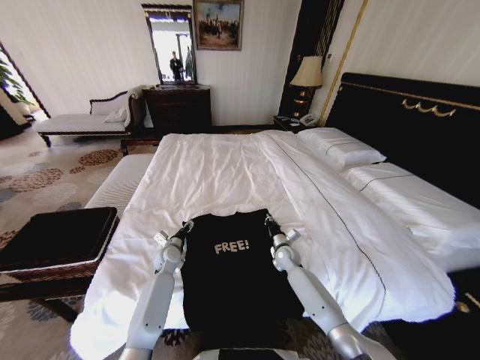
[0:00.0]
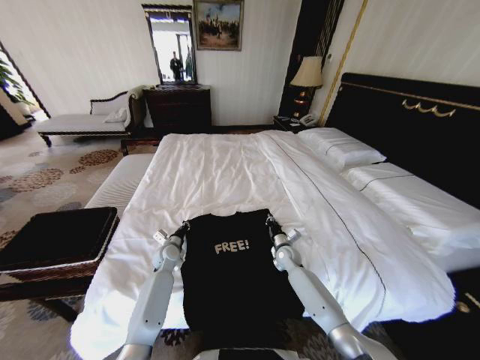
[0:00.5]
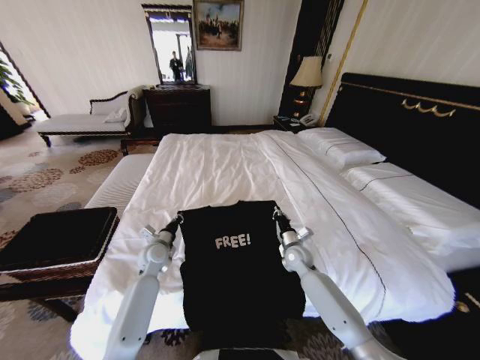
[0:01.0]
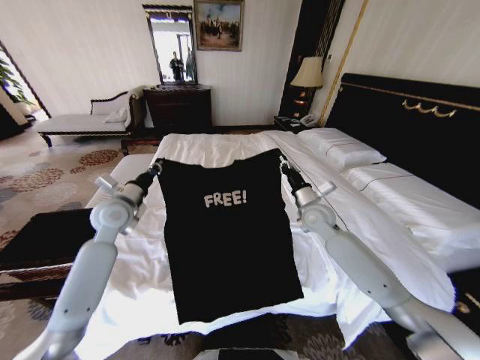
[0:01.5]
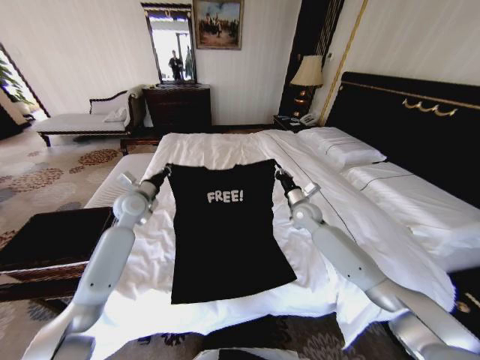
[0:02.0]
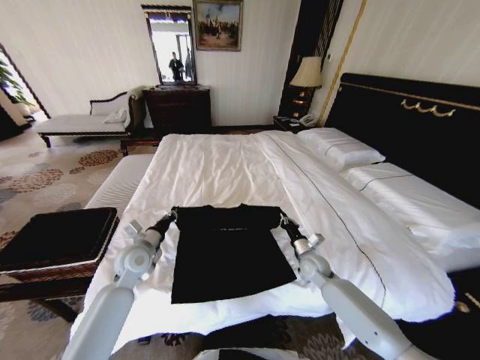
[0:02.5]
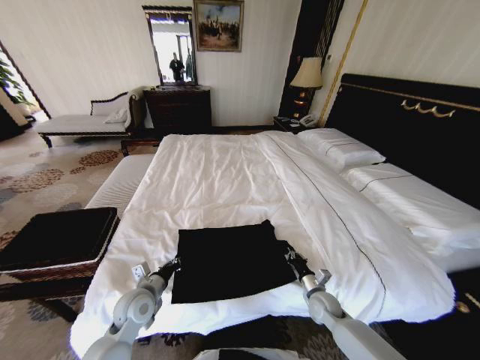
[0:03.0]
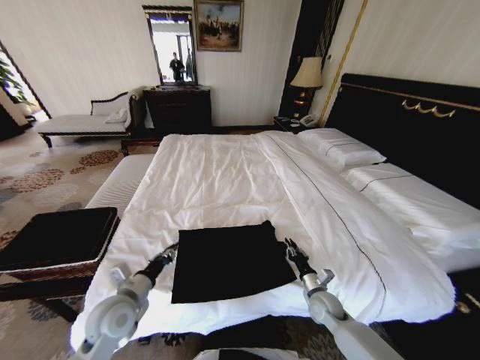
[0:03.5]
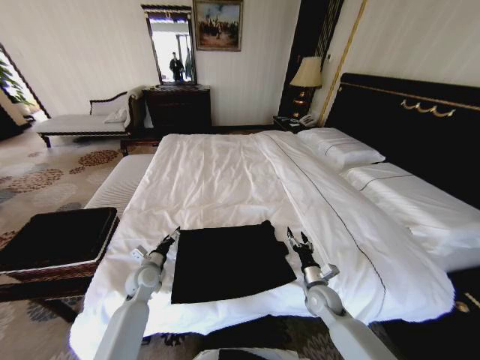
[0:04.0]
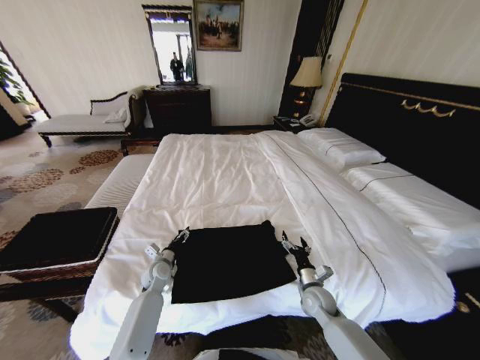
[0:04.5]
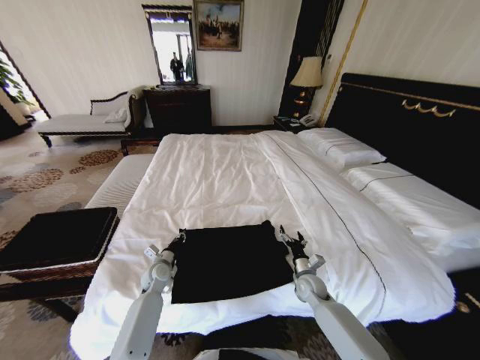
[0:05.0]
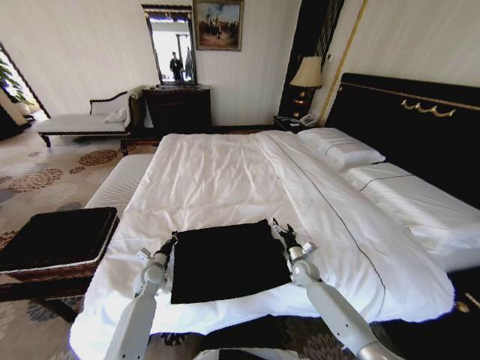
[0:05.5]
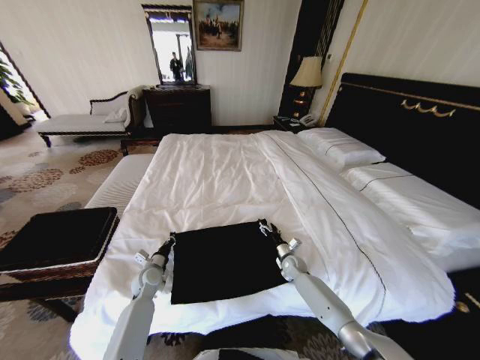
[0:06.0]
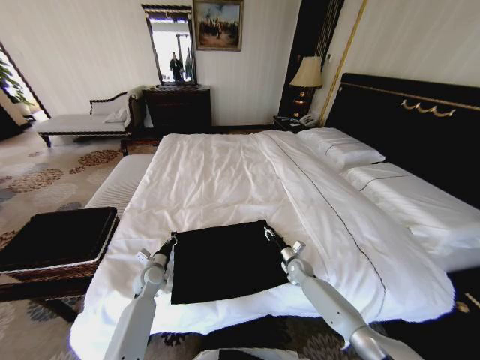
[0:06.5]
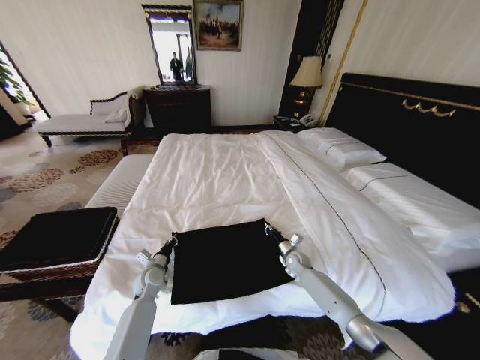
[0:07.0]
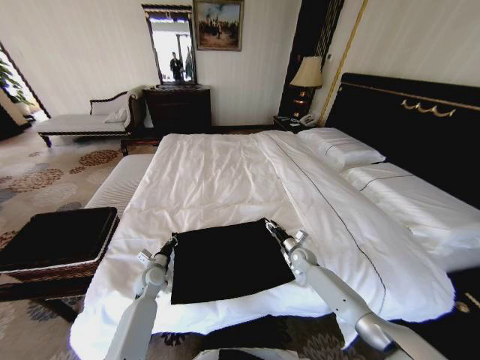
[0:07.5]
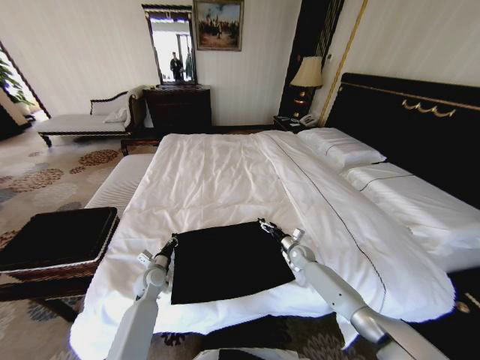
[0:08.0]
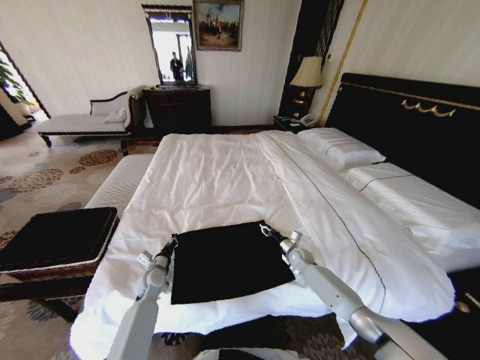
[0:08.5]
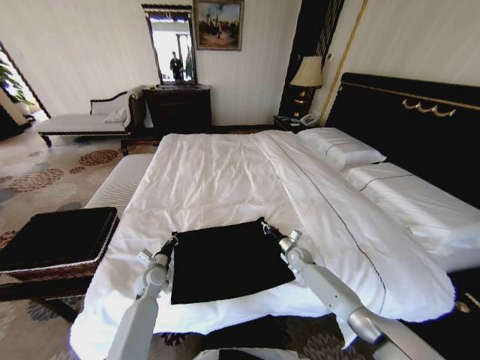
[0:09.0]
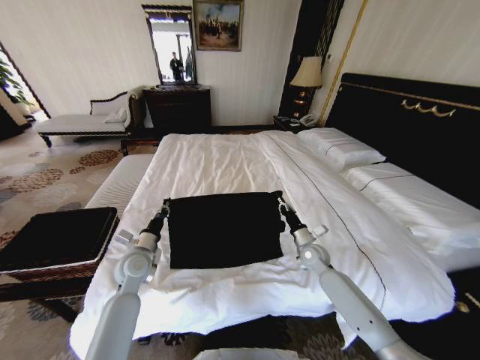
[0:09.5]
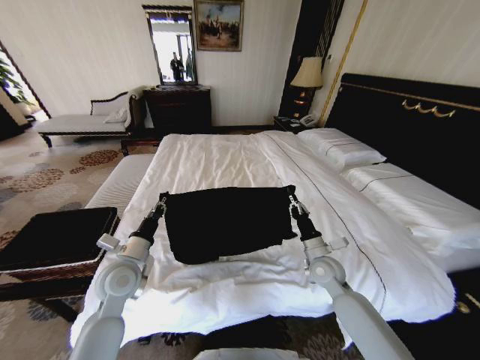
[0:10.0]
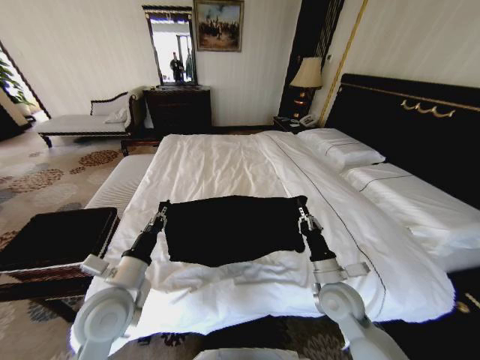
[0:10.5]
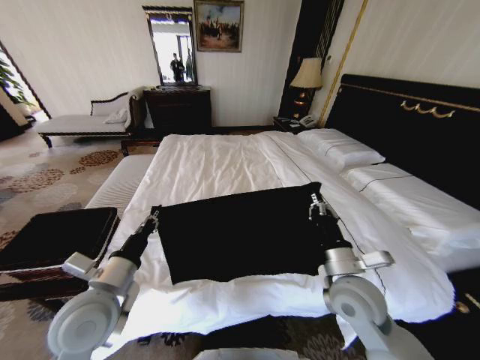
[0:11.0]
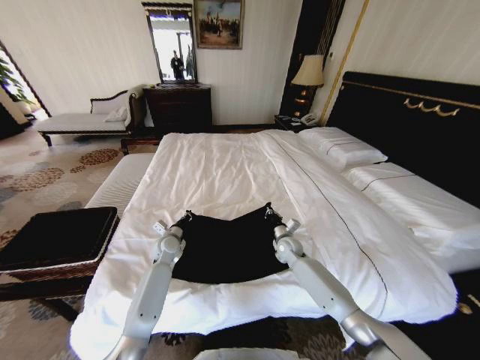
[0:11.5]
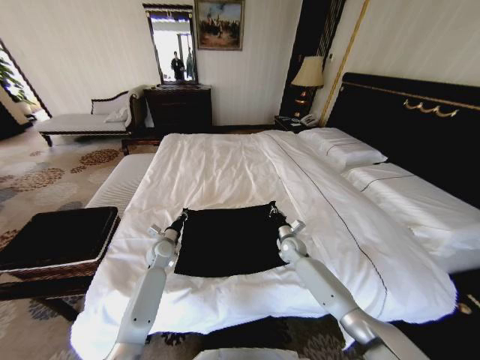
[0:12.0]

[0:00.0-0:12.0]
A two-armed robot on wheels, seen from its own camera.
Task of the whole recording: Fold the clothes on the bed and place them into the basket.
0.0 to 2.0 s: Both grippers travel together upward, approximately 20 cm. The left gripper closes up.
2.0 to 4.0 s: The right gripper goes about 25 cm backward and downward, and opens. The left gripper is displaced downward and backward by some 25 cm, and opens up.
4.0 to 6.0 s: The left gripper closes up; the right gripper travels forward and downward by approximately 15 cm.
6.0 to 8.0 s: The right gripper changes place by about 5 cm, and closes, then opens again.
8.0 to 10.0 s: The left gripper shifts some 20 cm upward, while the right gripper heads upward and backward, covering about 20 cm, and closes up.
10.0 to 12.0 s: Both grippers move forward and downward, approximately 20 cm.

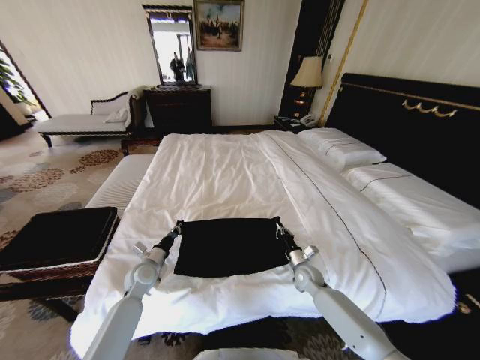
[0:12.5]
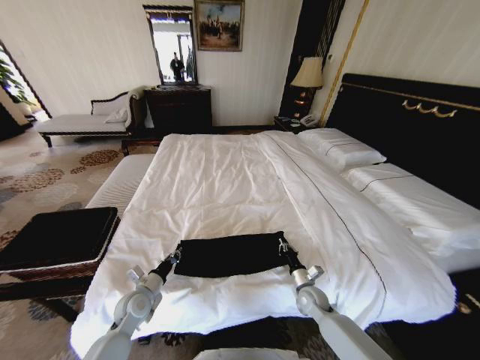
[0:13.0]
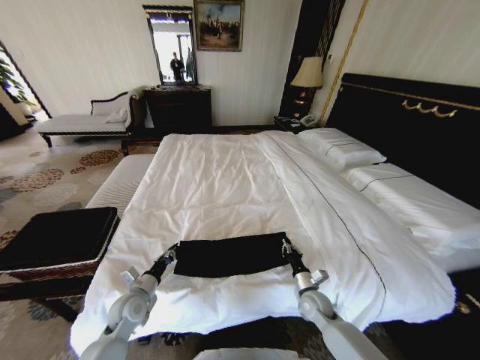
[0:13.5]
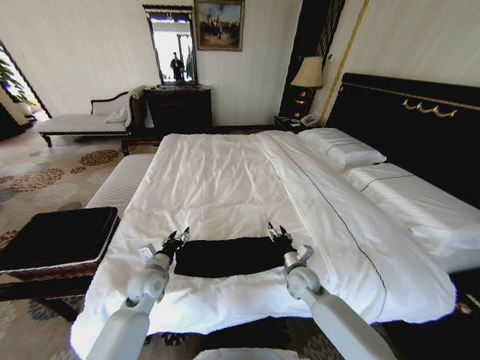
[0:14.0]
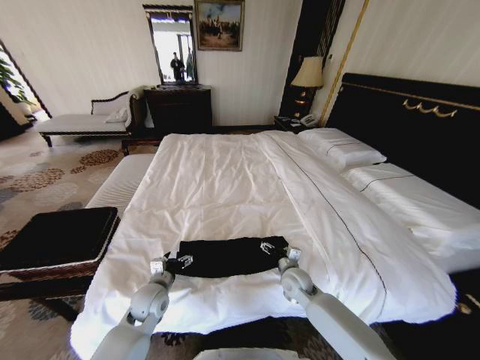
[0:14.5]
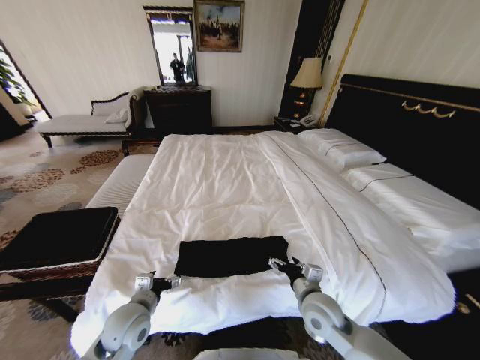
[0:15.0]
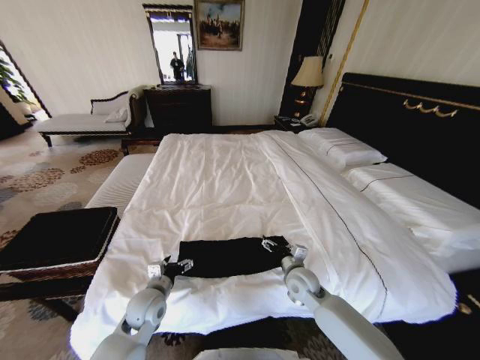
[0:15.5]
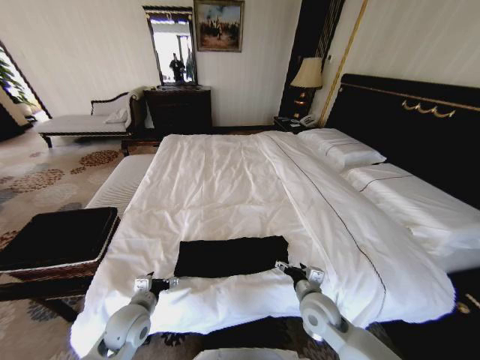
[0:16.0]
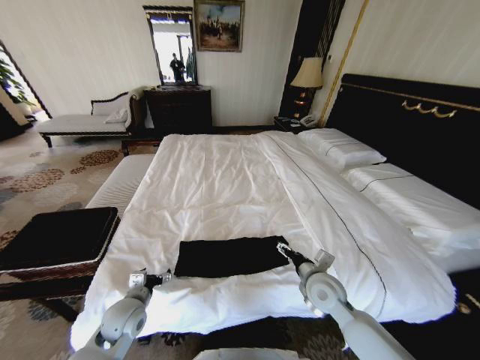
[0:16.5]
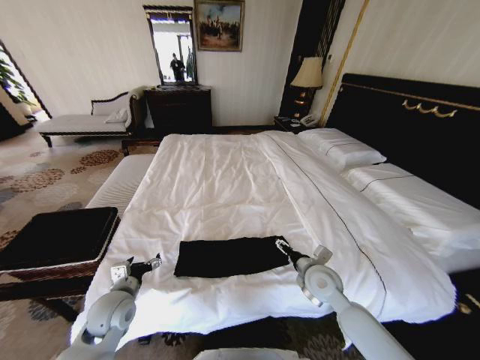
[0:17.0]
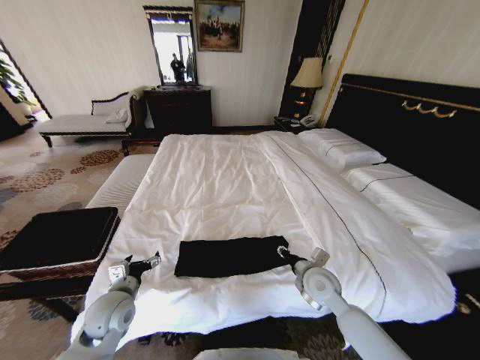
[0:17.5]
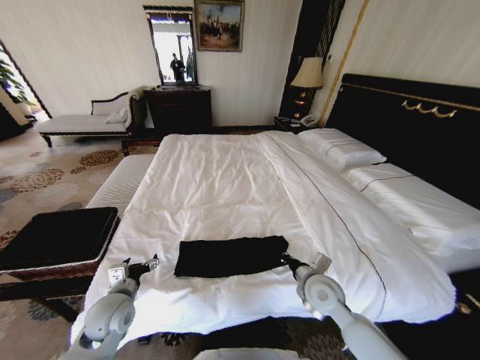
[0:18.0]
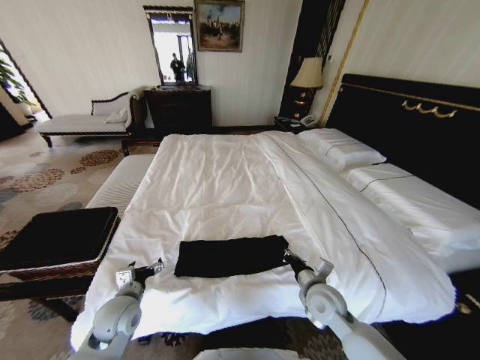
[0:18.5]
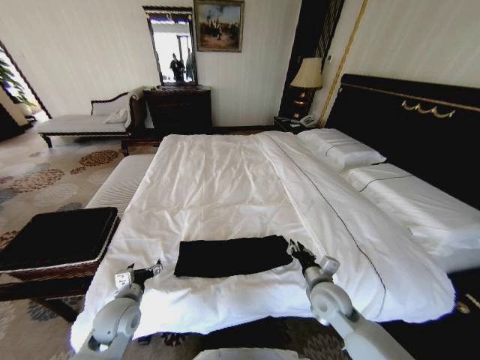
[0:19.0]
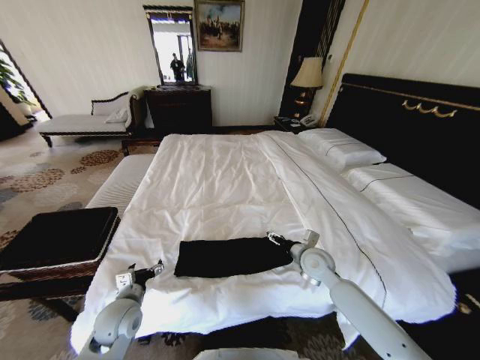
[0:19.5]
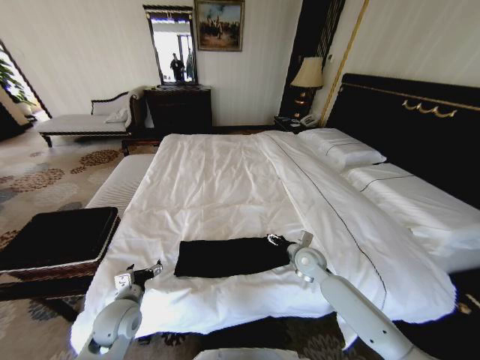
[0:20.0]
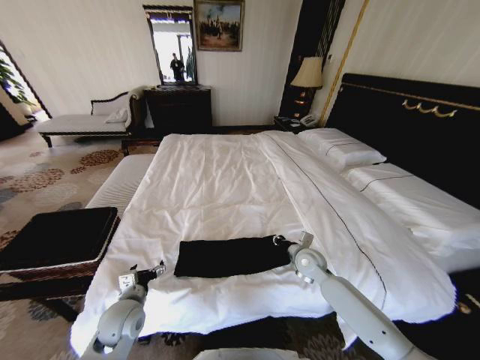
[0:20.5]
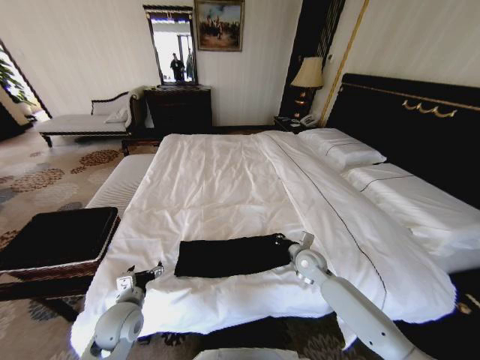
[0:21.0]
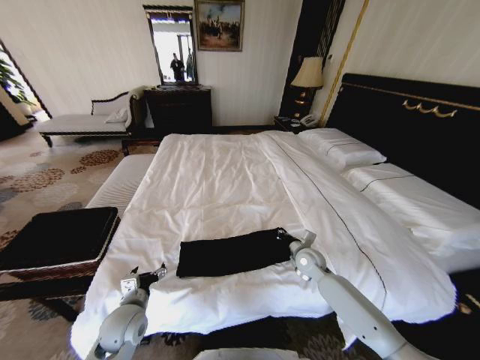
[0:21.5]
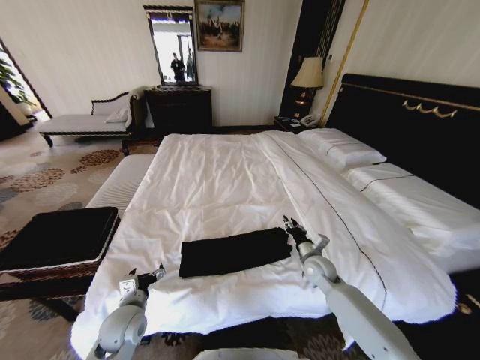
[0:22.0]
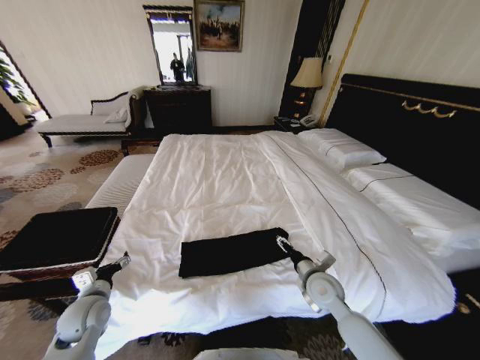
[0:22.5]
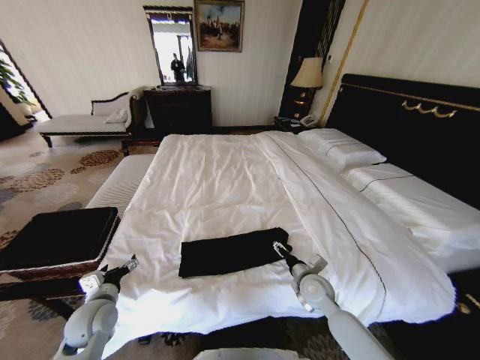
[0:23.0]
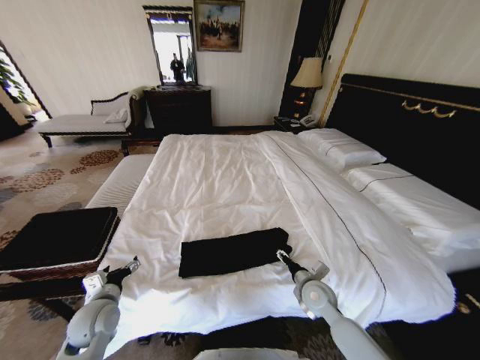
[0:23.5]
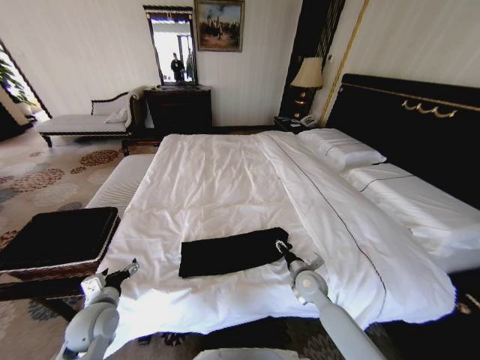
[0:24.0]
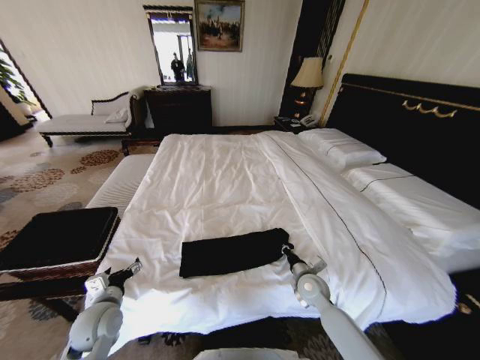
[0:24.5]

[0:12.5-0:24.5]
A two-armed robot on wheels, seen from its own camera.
Task of the whole recording: Fold the clothes on the bed and place them into the basket.
12.5 to 14.5 s: The right gripper is displaced to the left and upward by approximately 10 cm, and opens; the left gripper moves backward and to the right, approximately 10 cm, and opens up.
14.5 to 16.5 s: The right gripper moves forward and backward over about 10 cm, changing direction 3 times. The left gripper swings forward and backward, roughly 5 cm each way, with 2 reversals.
16.5 to 18.5 s: The right gripper closes.
18.5 to 20.5 s: The right gripper moves forward, about 10 cm, and opens, then closes again.
20.5 to 22.5 s: The right gripper shifts approximately 10 cm backward, and opens, while the left gripper goes about 10 cm to the left.
22.5 to 24.5 s: The right gripper is displaced downward by approximately 10 cm, and closes.

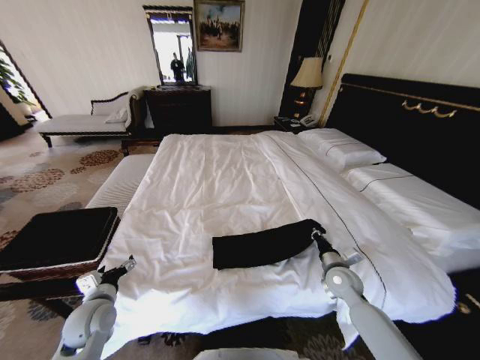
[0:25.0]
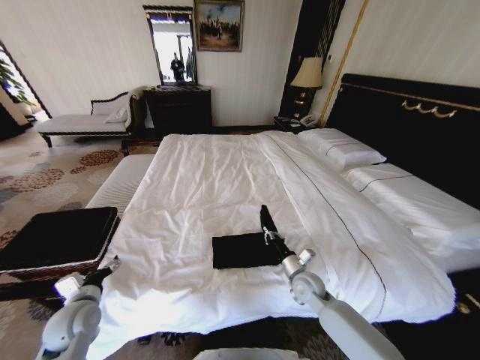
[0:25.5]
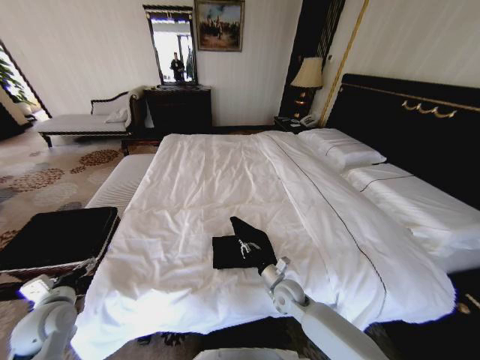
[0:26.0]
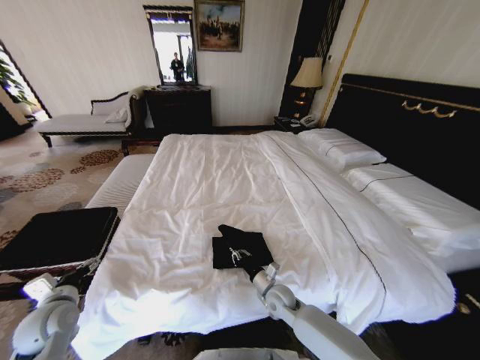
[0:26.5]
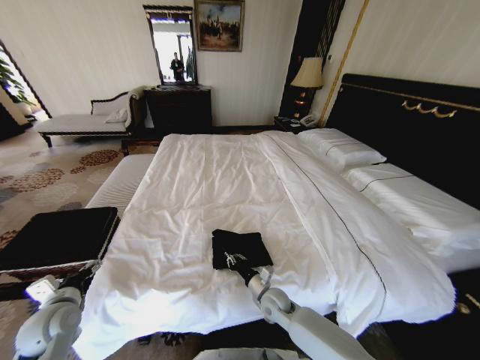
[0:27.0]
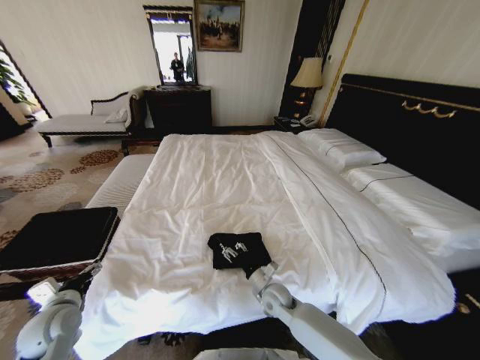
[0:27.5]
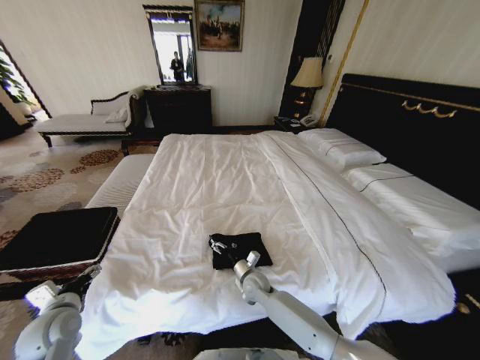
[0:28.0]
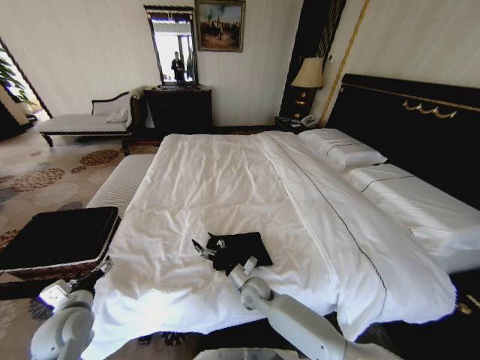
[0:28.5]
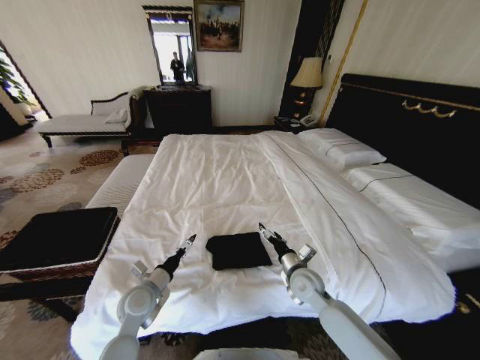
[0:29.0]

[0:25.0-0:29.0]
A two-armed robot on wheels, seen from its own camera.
Task of the whole recording: Fold the clothes on the bed and place them into the basket.
25.0 to 27.0 s: The left gripper heads to the left, covering approximately 5 cm, while the right gripper goes approximately 20 cm to the left and downward.
27.0 to 29.0 s: The left gripper moves to the right, about 15 cm; the right gripper travels upward and to the right by some 15 cm, and opens.
